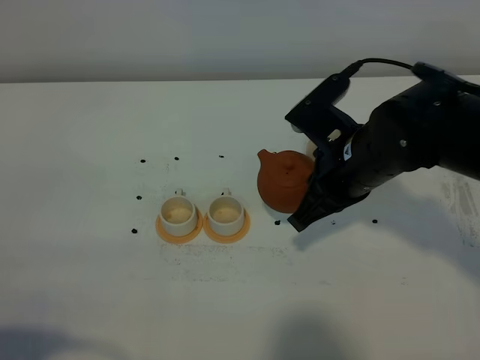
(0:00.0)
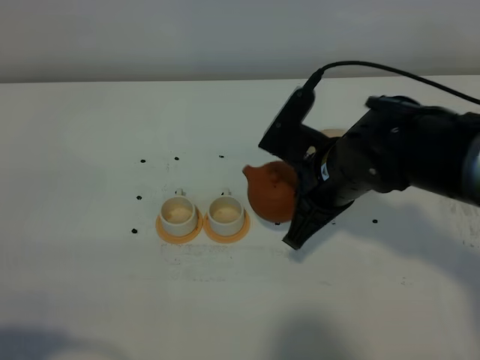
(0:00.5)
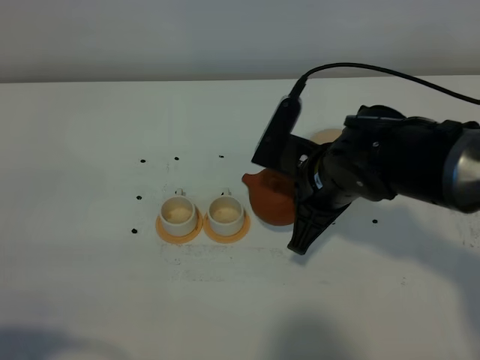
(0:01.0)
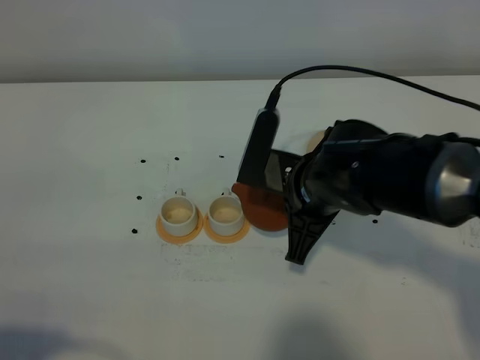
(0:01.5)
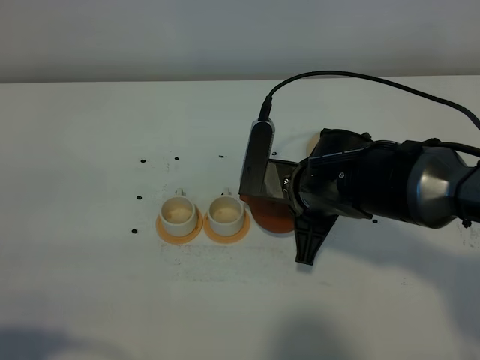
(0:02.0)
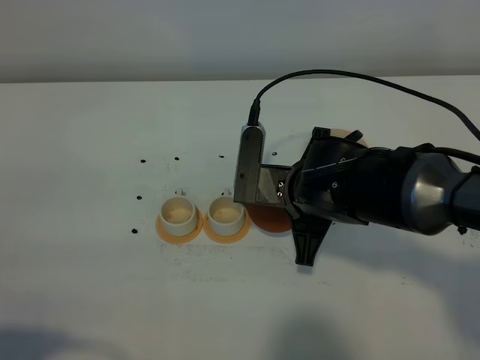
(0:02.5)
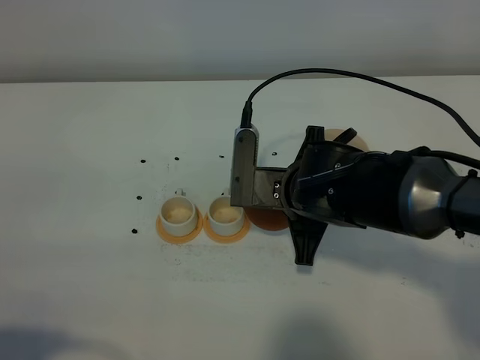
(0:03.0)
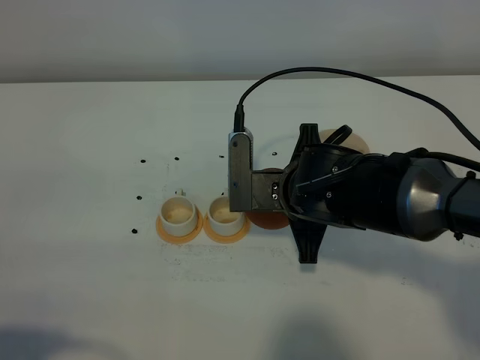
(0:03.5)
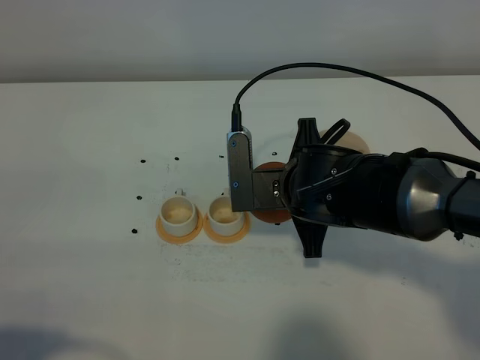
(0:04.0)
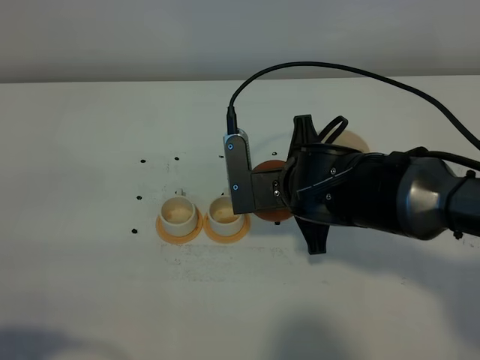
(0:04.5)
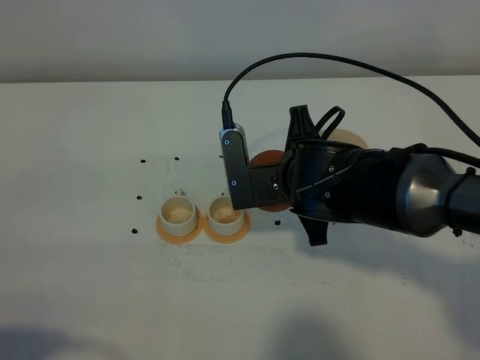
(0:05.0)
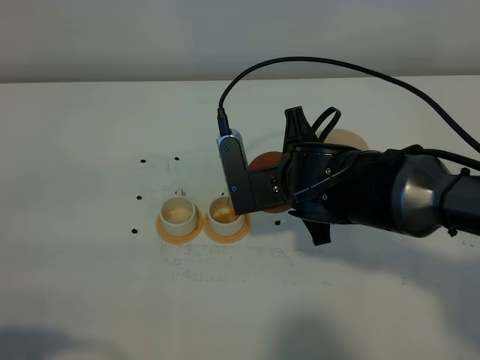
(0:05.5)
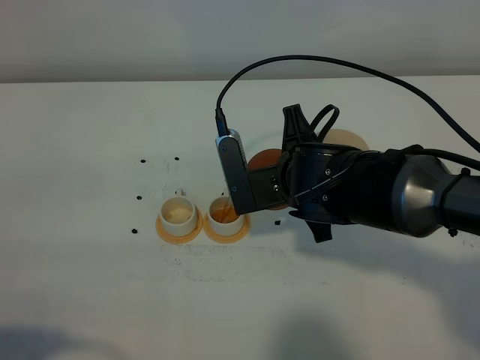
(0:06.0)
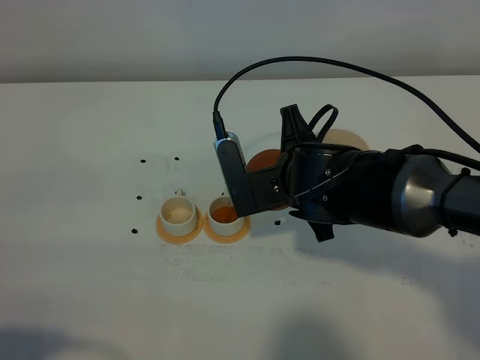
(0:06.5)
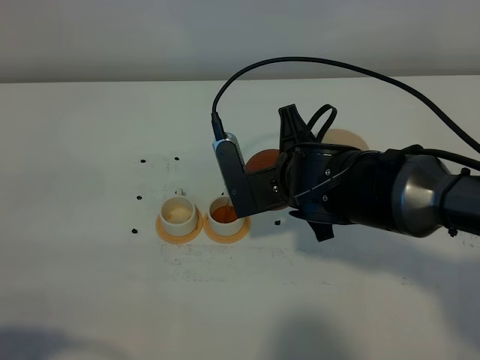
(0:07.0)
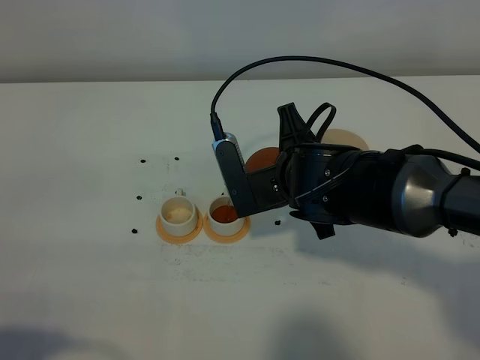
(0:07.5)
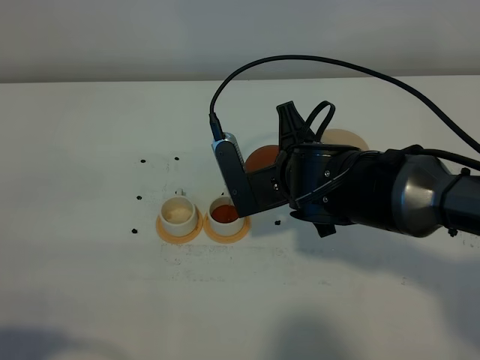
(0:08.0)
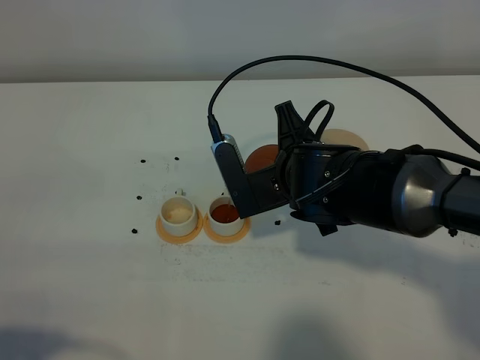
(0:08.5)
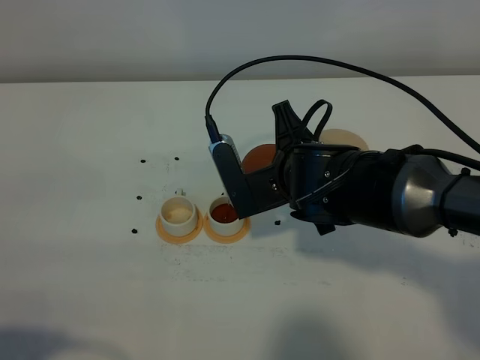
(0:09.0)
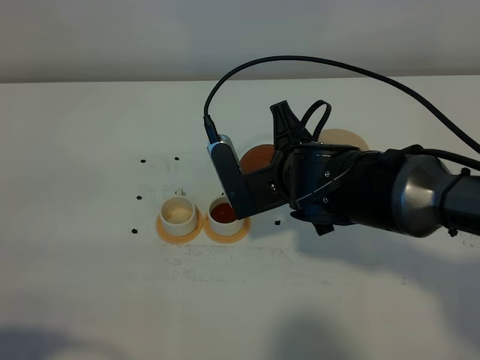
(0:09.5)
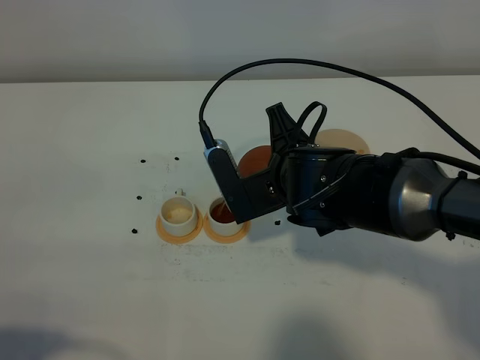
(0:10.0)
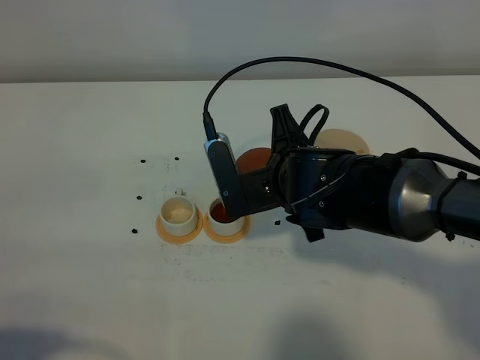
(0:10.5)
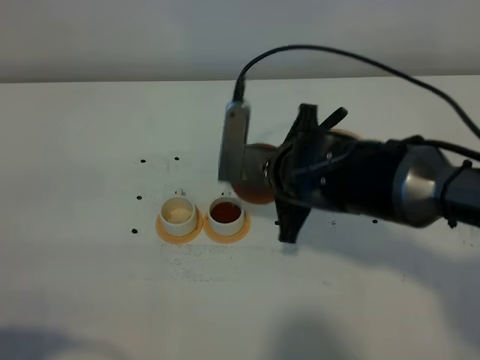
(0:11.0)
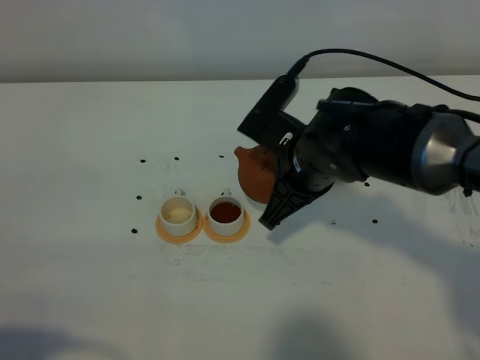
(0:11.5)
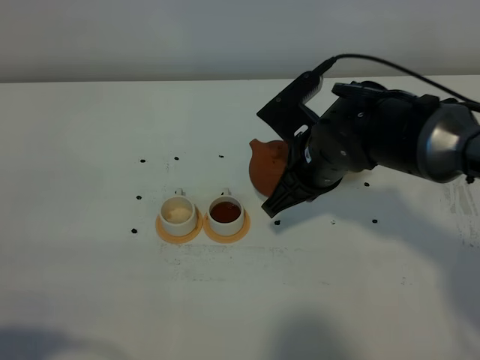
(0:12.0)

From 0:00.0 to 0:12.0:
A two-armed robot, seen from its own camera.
Task of the whole recording: grasp the brown teapot and pour the tea into the two white teacups one by one, put the brown teapot back in its original place.
From 0:00.0 to 0:02.0: The right gripper shifts by some 5 cm.
From 0:02.0 to 0:04.0: The grippers make only small movements.
From 0:04.0 to 0:08.0: The grippers stay close to where they were, moving slightly.
From 0:08.0 to 0:10.0: Both grippers stay about where they are.

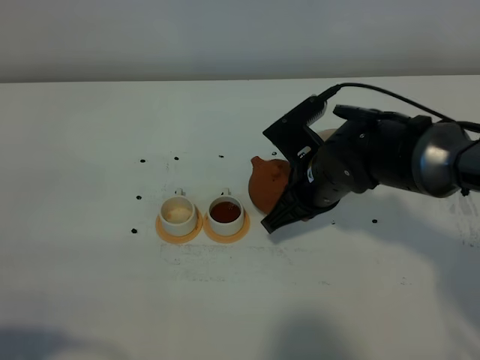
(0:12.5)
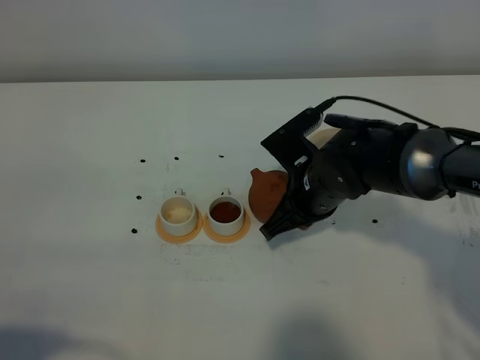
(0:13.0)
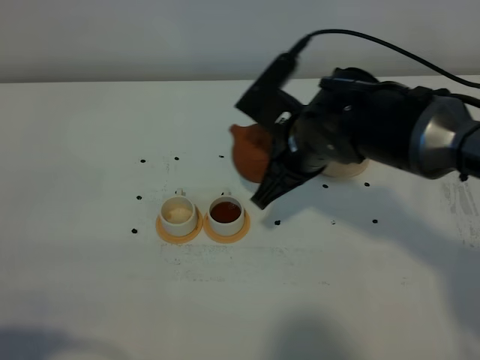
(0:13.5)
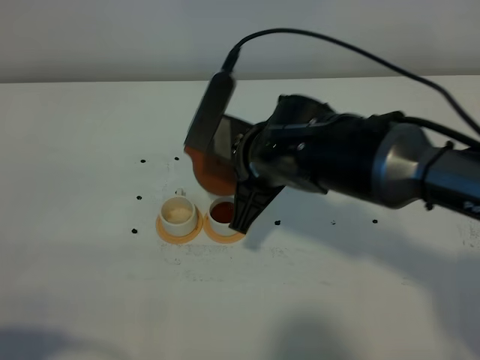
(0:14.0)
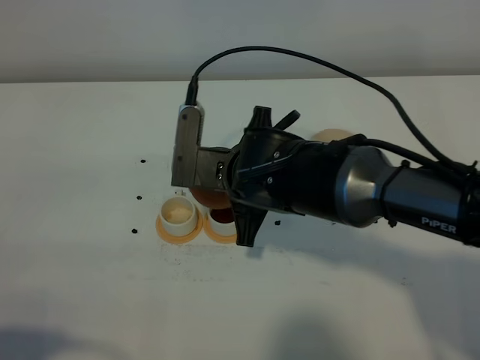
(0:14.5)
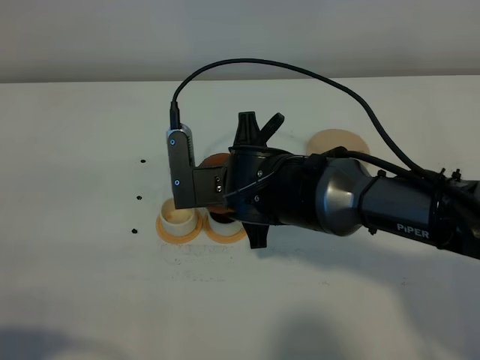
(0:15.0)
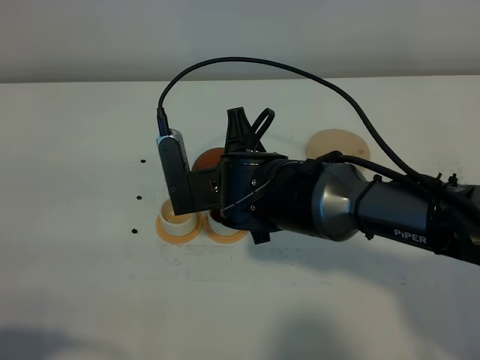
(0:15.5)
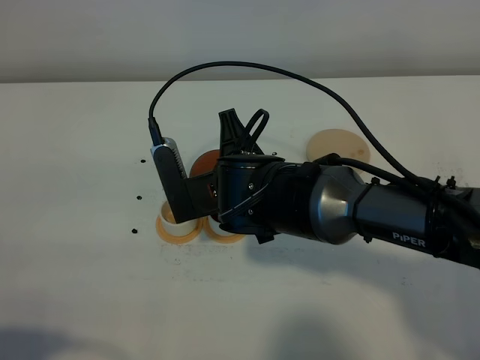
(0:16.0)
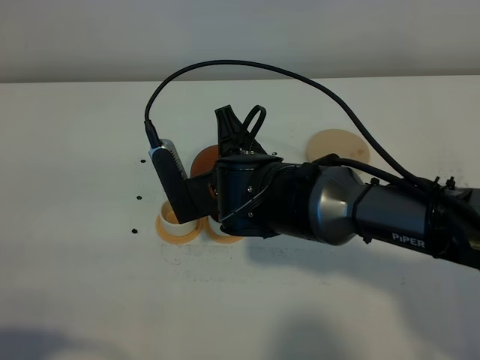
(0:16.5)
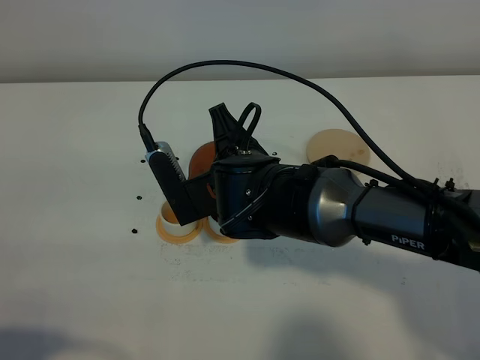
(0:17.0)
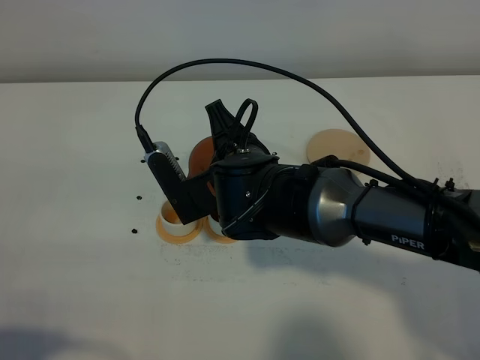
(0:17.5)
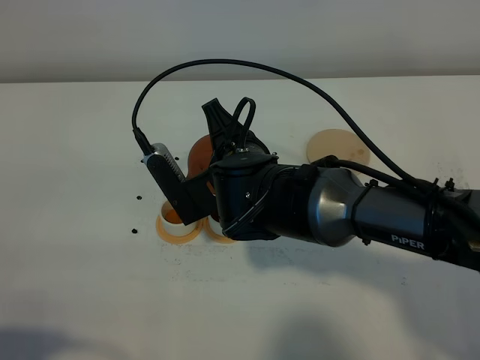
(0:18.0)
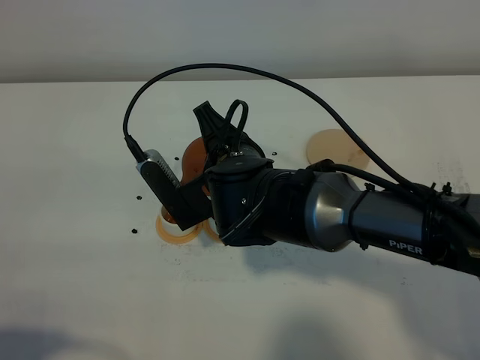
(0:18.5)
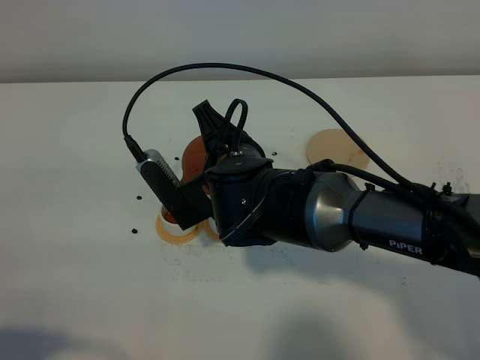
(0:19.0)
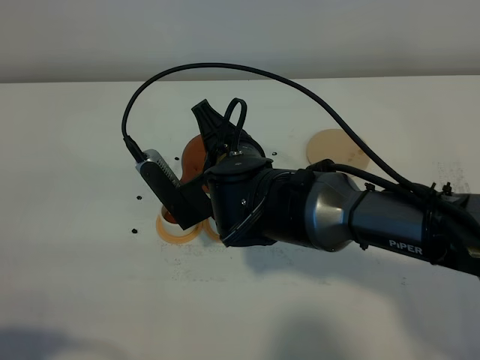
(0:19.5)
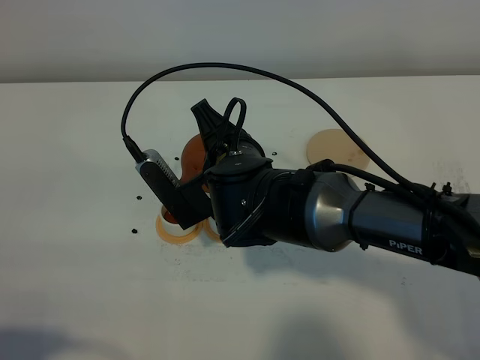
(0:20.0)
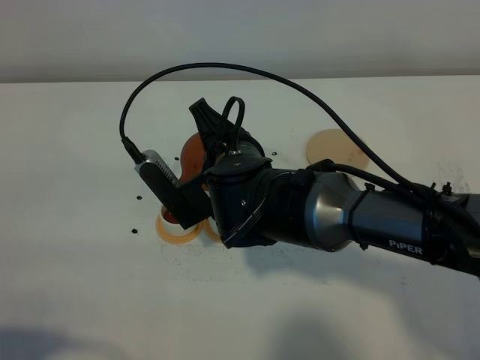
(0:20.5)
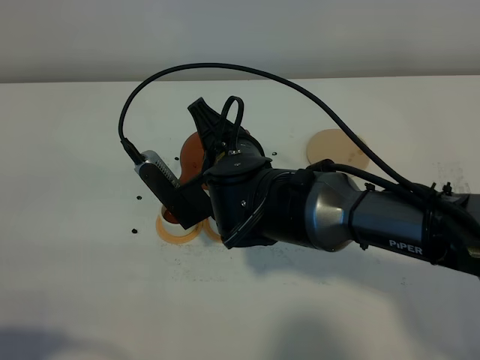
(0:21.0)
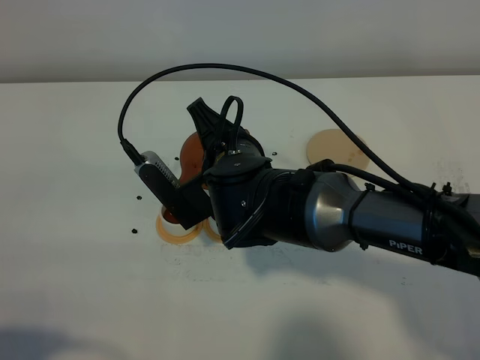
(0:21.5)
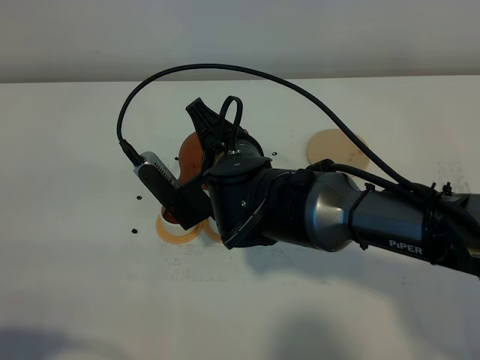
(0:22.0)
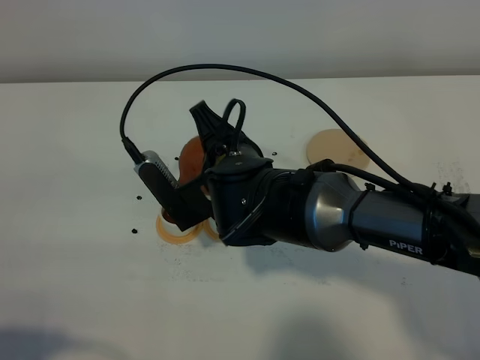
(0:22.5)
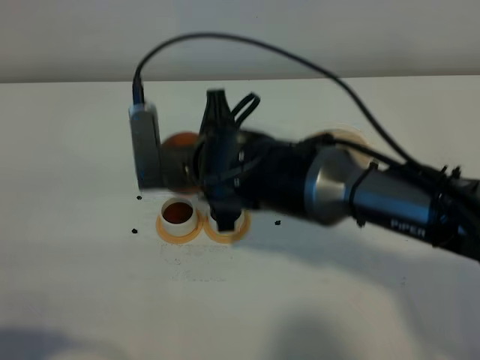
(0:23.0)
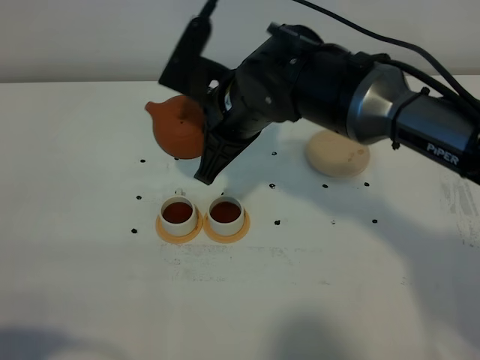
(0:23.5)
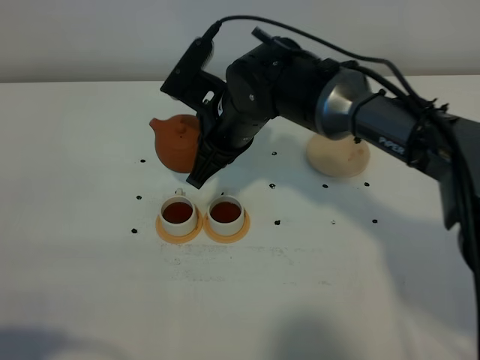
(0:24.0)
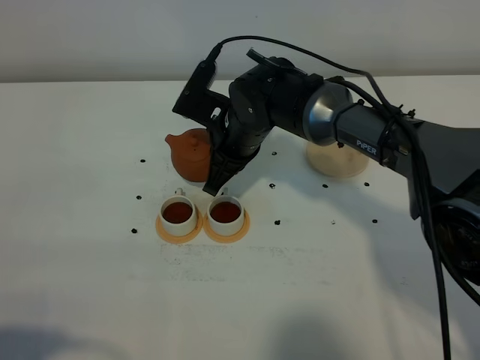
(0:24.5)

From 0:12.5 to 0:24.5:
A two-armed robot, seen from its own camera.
Task of the whole recording: grasp the brown teapot and pour the tea into the two white teacups one by one, put the brown teapot back in its original place.
Step, from 0:12.5 to 0:23.0: Pour tea into the teacup with the right gripper.
From 0:12.5 to 0:14.5: The right gripper goes approximately 10 cm to the left.
From 0:16.5 to 0:18.5: The grippers make only small movements.
From 0:18.5 to 0:20.5: Neither gripper changes place.
From 0:20.5 to 0:22.5: The grippers move only a little.
From 0:22.5 to 0:24.5: The right gripper goes some 10 cm forward.

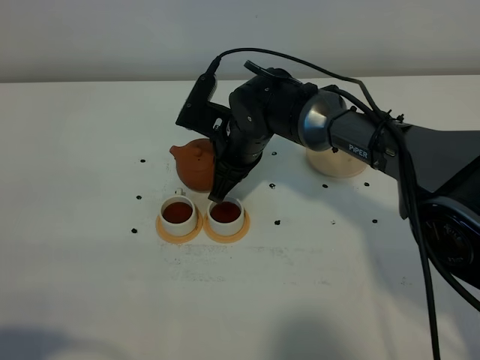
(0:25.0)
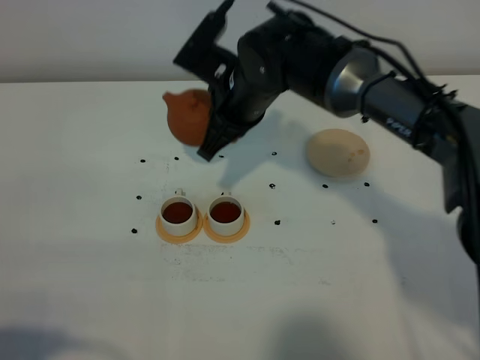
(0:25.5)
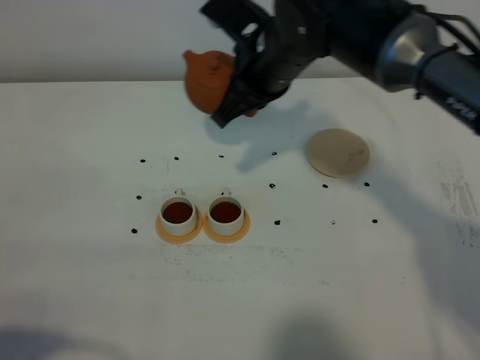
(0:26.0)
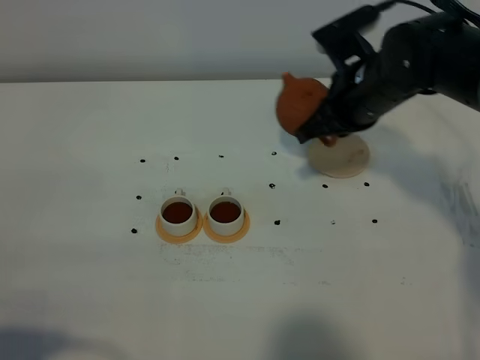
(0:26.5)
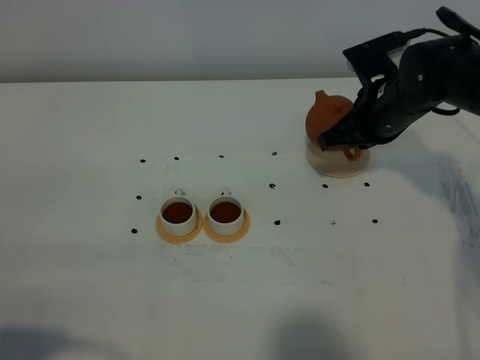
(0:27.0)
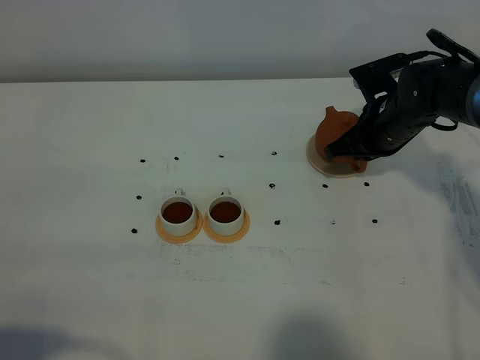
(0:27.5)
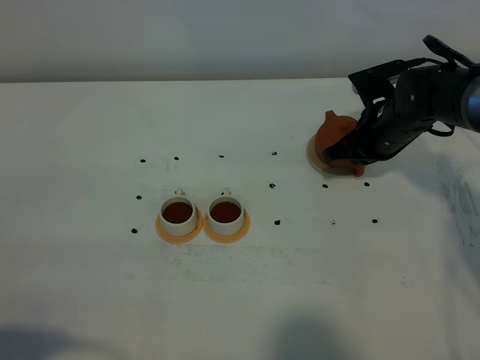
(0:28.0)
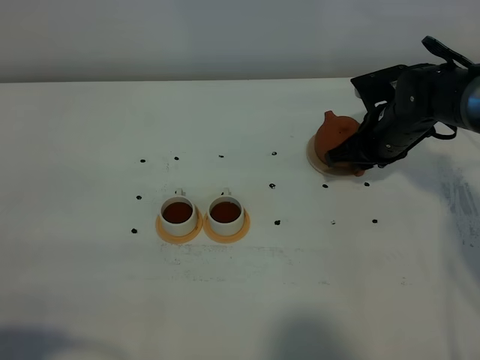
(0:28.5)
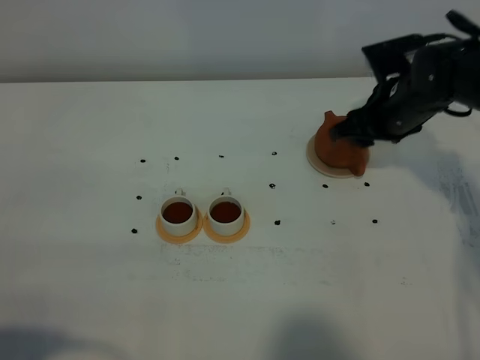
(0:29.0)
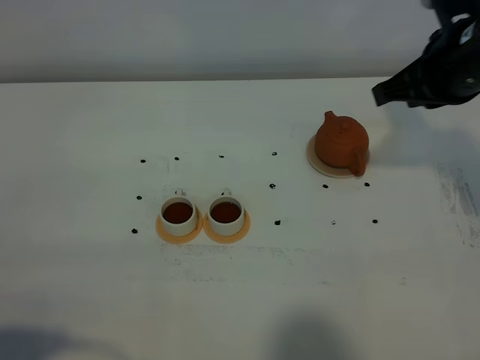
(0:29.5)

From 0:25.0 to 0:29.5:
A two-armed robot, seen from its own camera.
Task of the whole recording: grasp the brown teapot and pour the tea into the two white teacups one by one, put the brown teapot back in its original place.
From 0:25.0 to 0:27.0: The right gripper shifts some 20 cm to the right.
From 0:27.0 to 0:29.5: The right gripper shifts about 15 cm upward and backward, and opens, then closes once more.
